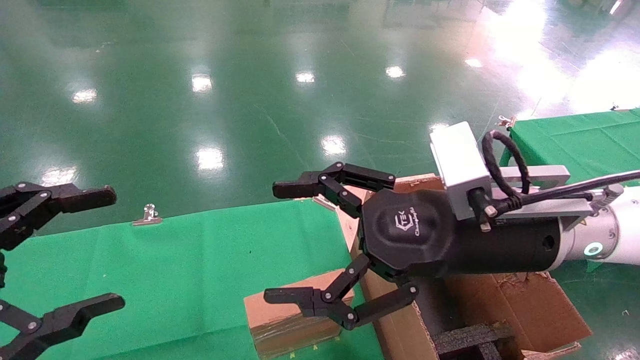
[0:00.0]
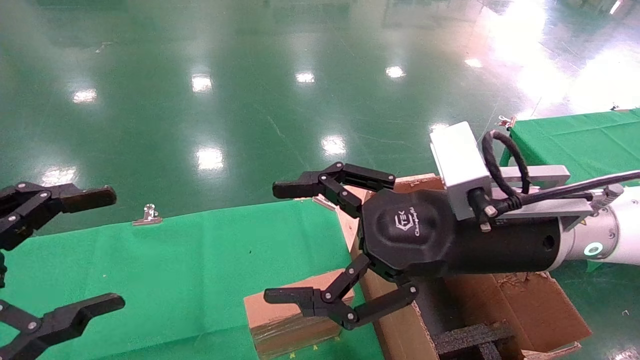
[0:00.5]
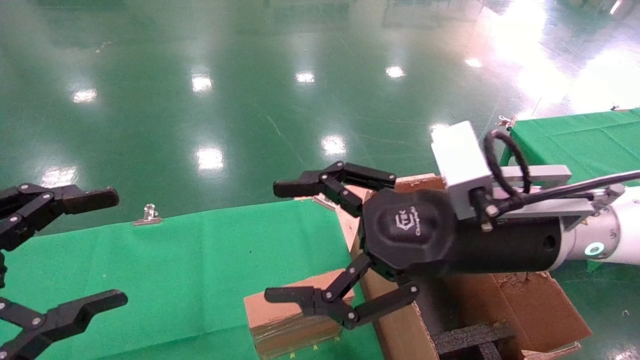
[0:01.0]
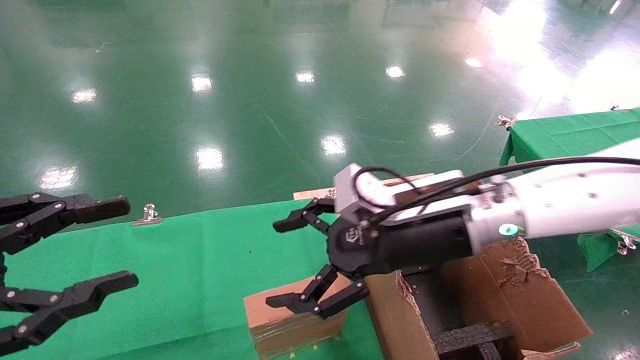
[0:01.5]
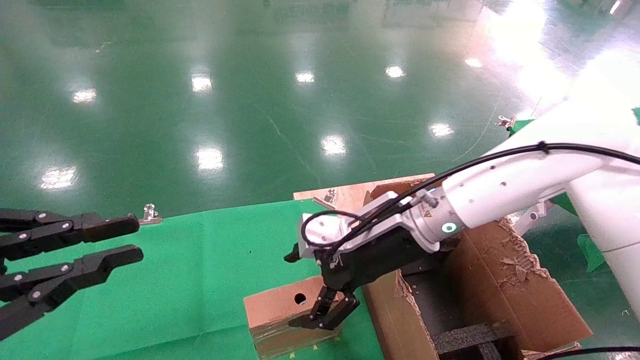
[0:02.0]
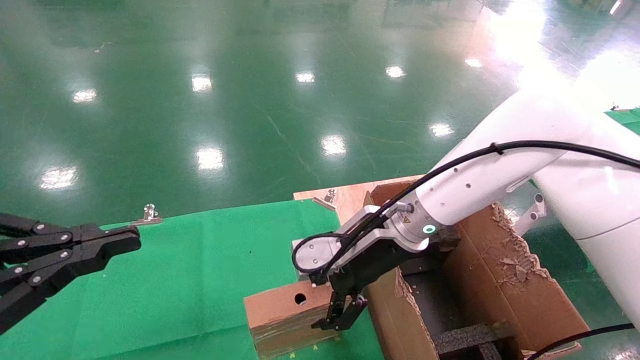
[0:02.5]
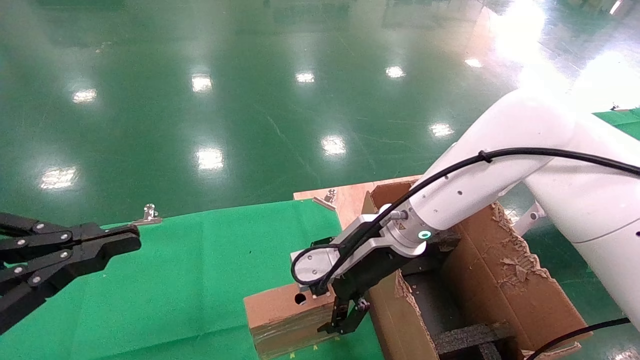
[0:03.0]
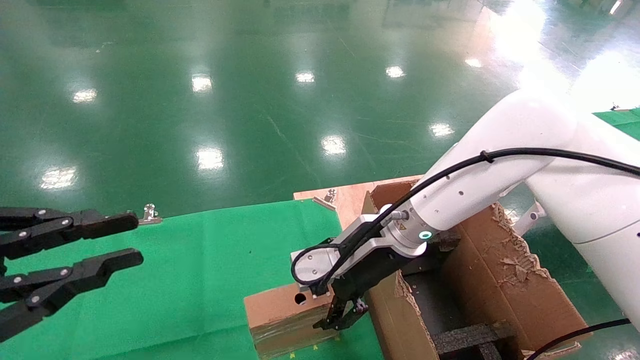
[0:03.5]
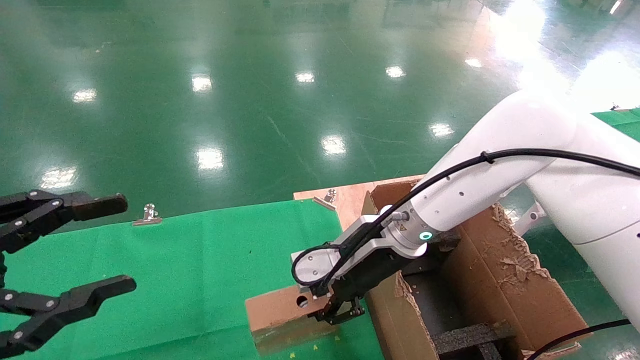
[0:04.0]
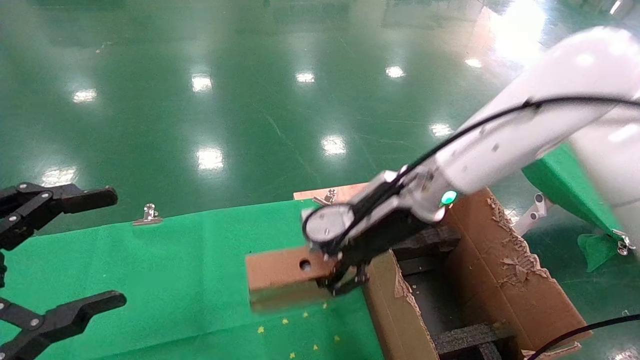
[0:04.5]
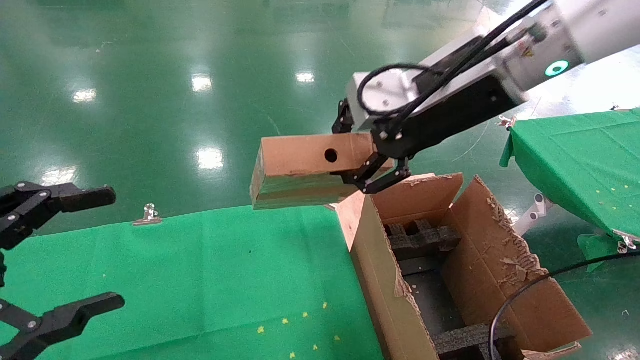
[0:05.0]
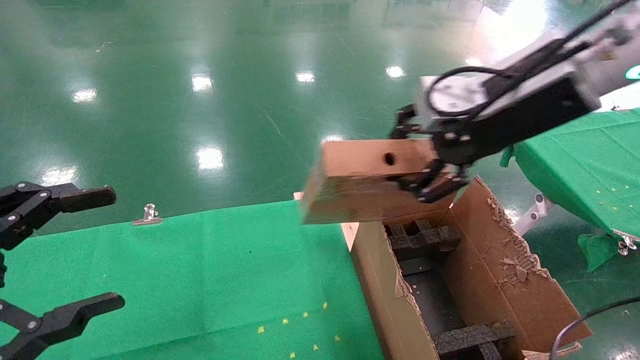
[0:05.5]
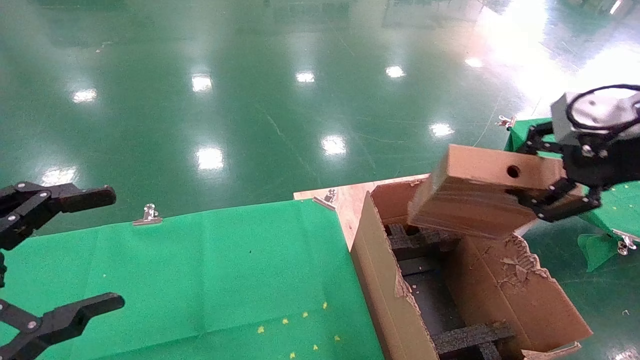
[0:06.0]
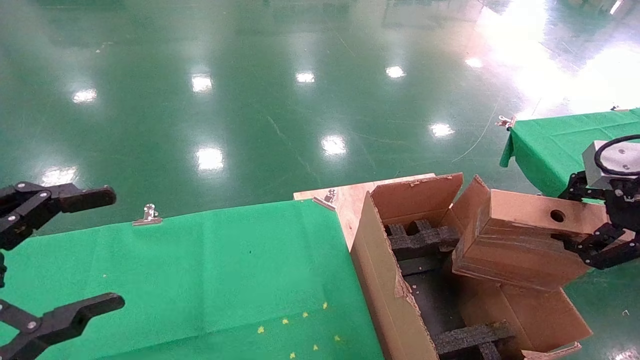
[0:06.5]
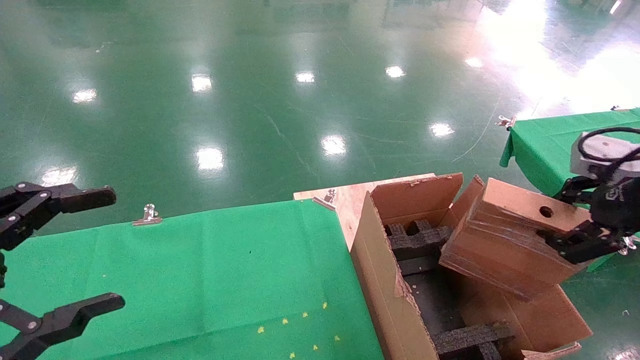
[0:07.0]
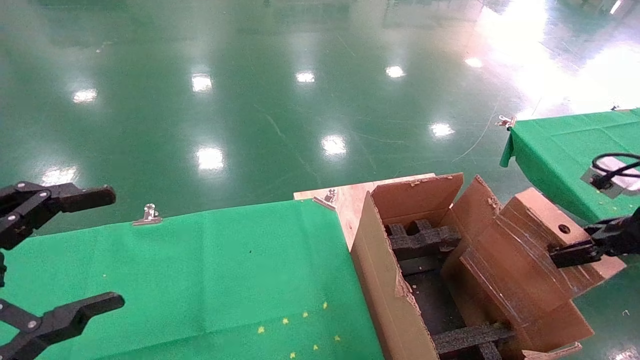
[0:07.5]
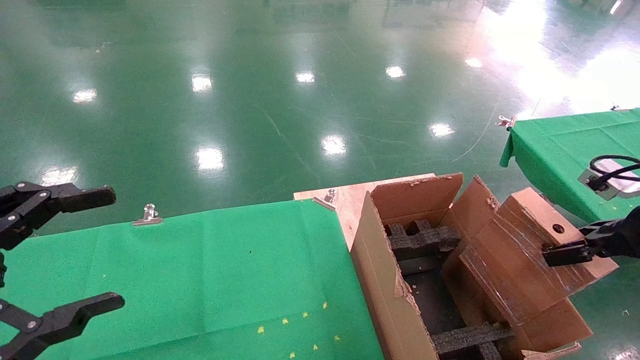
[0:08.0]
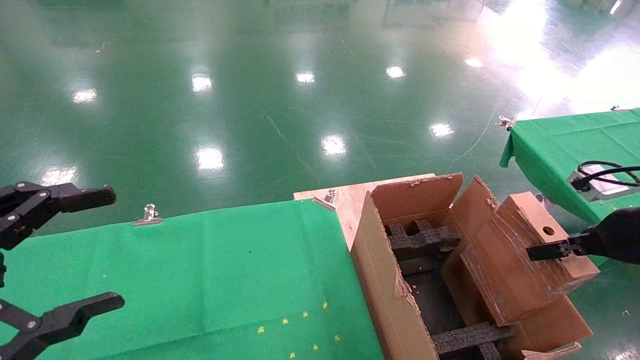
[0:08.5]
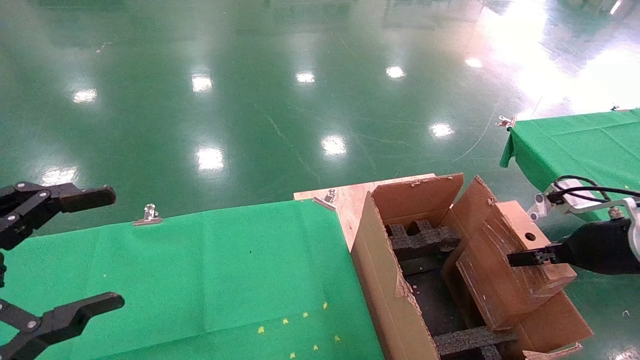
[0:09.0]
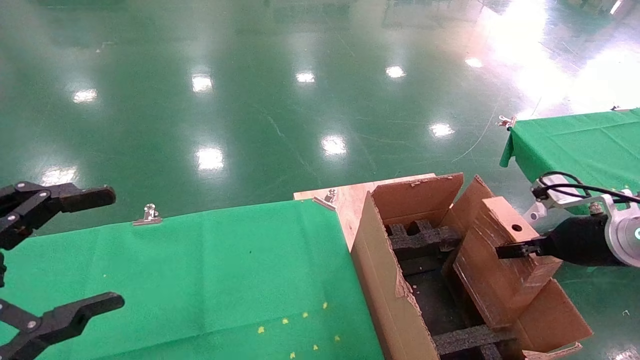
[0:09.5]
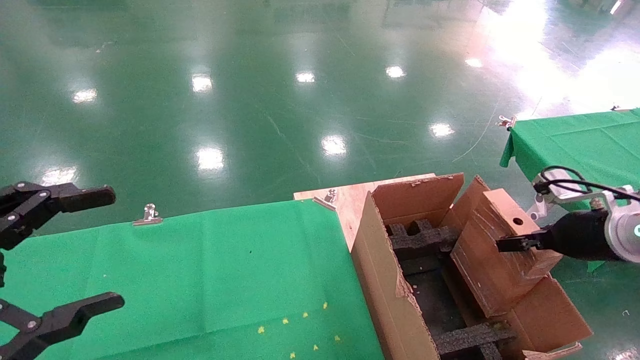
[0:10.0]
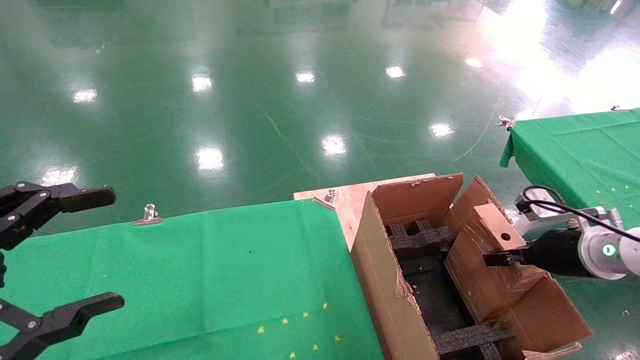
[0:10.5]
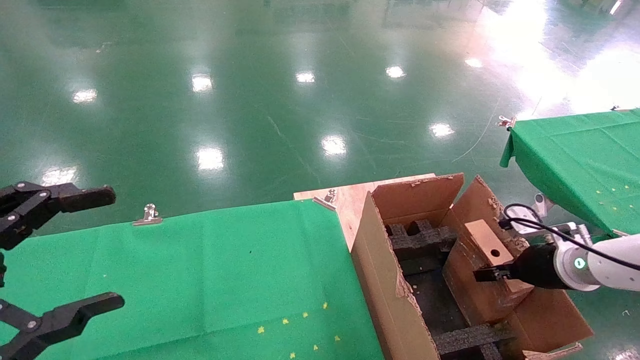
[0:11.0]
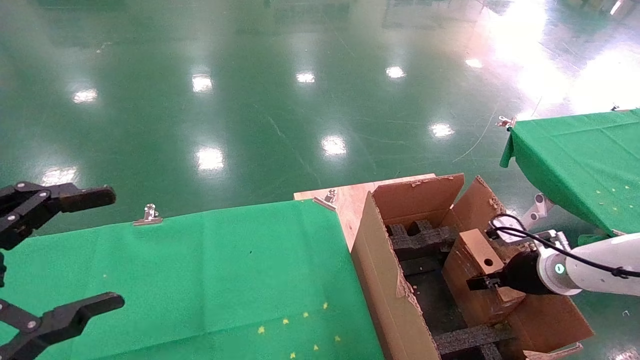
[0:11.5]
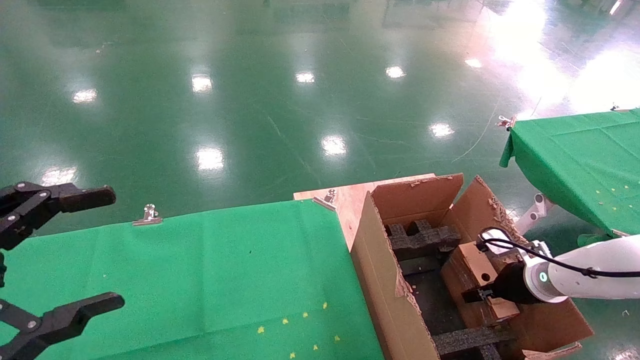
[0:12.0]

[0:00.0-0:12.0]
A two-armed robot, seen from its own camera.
Task of the whole recording: using a robotic arm to pick up a cardboard box and palace it the carton.
Step, 0:01.5 to 0:03.5: Pick up the mouse and the power cord paper box.
0:00.0 to 0:02.0: The left gripper closes up, while the right gripper heads forward and downward, covering approximately 10 cm.
0:02.0 to 0:04.0: The right gripper closes its fingers.
0:04.0 to 0:06.0: The left gripper opens up, while the right gripper is displaced to the right, upward and backward by about 35 cm.
0:06.0 to 0:08.0: The right gripper moves downward and to the right, roughly 15 cm.
0:08.0 to 0:10.0: The right gripper is displaced forward and downward by about 10 cm.
0:10.0 to 0:12.0: The right gripper heads downward and forward, covering some 15 cm.

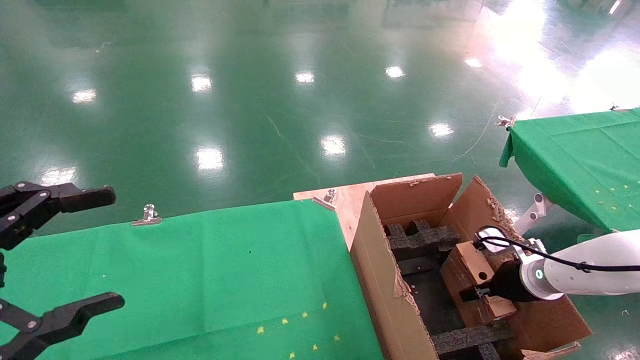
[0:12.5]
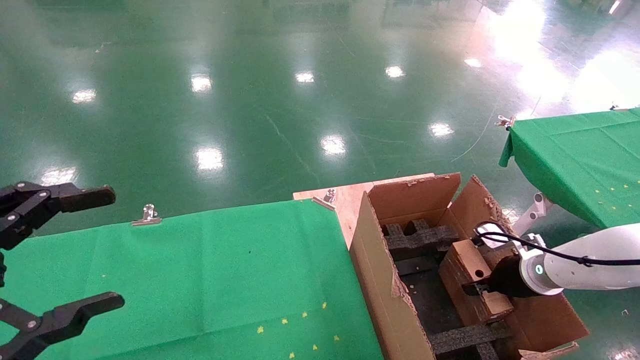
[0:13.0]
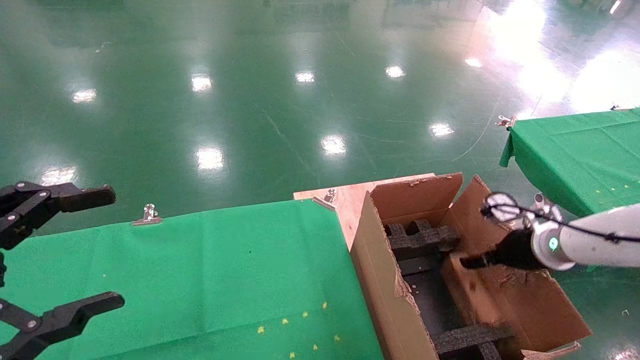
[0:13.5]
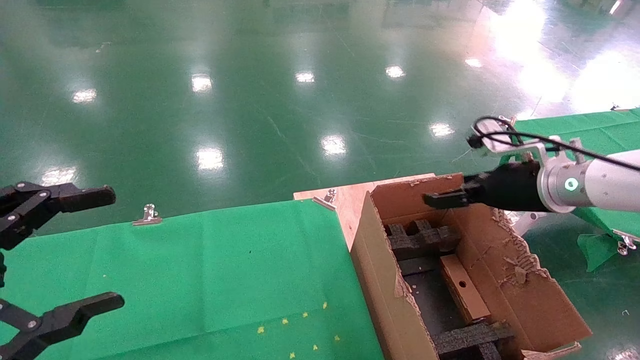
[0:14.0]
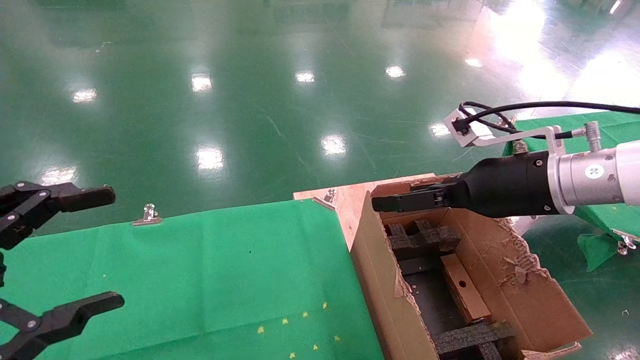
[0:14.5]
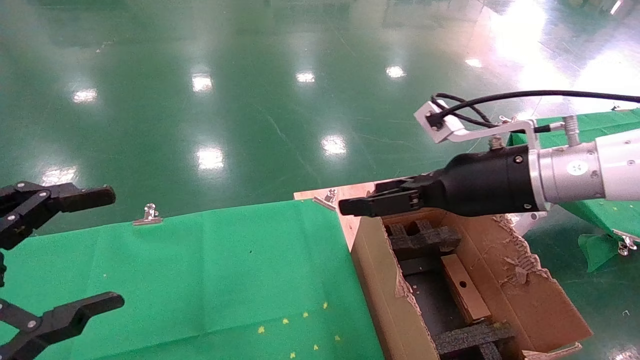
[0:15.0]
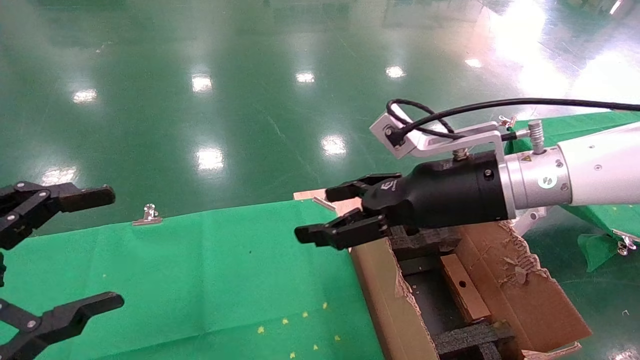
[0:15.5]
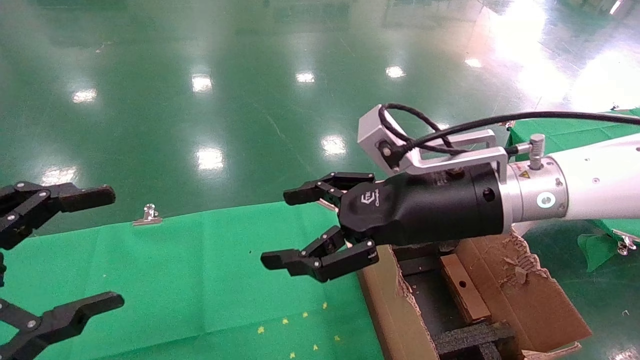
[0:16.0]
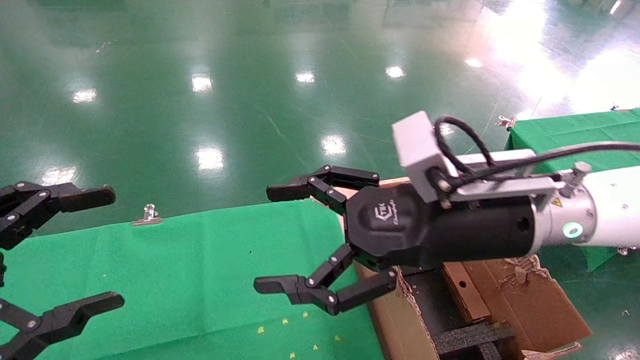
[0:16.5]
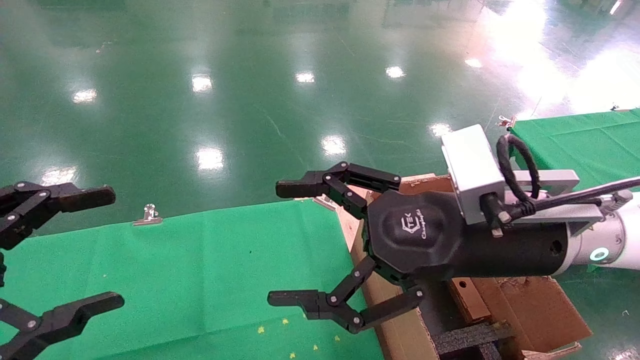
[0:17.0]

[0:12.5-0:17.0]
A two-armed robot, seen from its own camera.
Task of the whole recording: using a robotic arm to pick up a cardboard box and palace it the carton.
0:12.5 to 0:14.5: The right gripper heads upward and to the left, covering about 25 cm, and opens.
0:14.5 to 0:17.0: The right gripper travels to the left and backward by about 10 cm.
